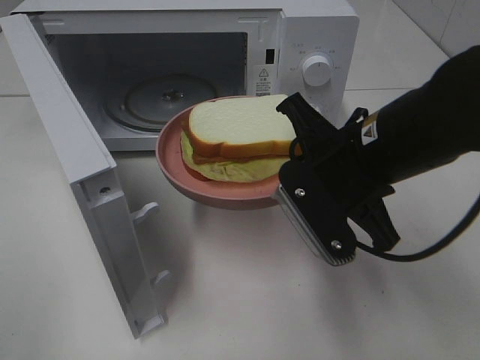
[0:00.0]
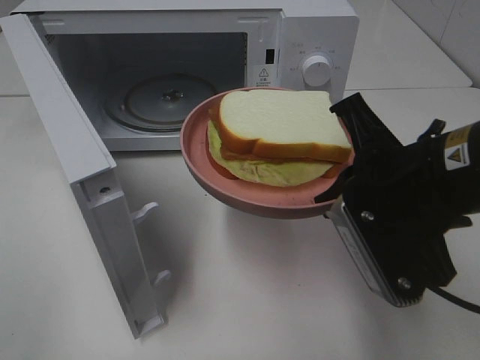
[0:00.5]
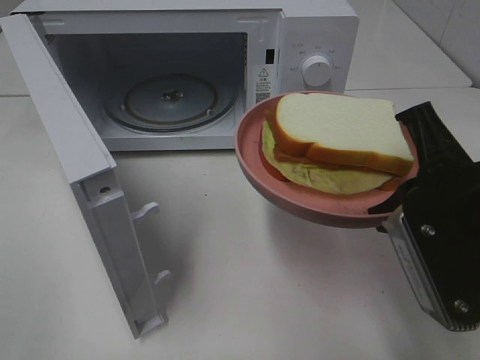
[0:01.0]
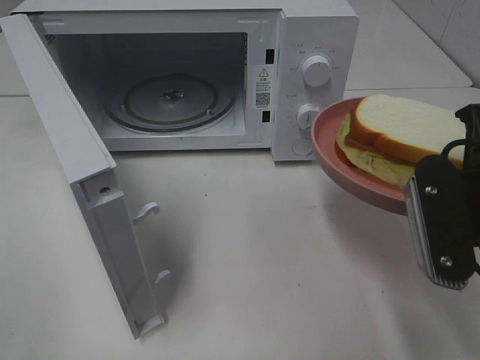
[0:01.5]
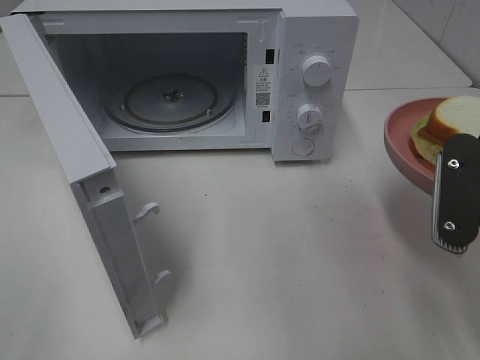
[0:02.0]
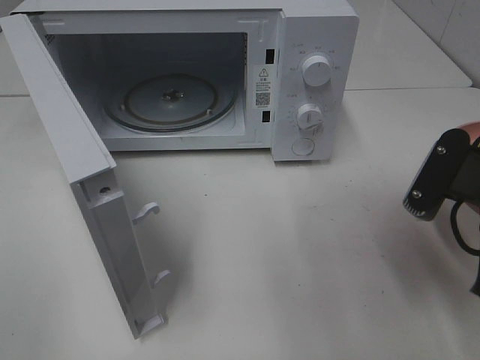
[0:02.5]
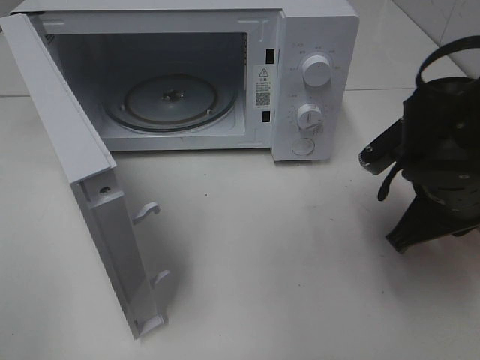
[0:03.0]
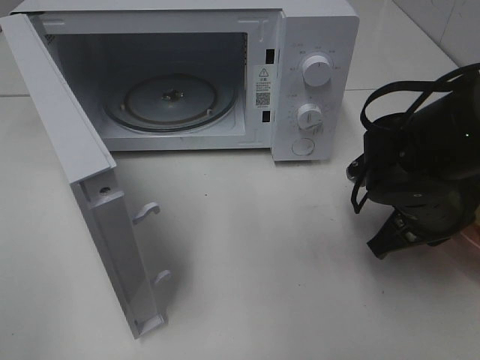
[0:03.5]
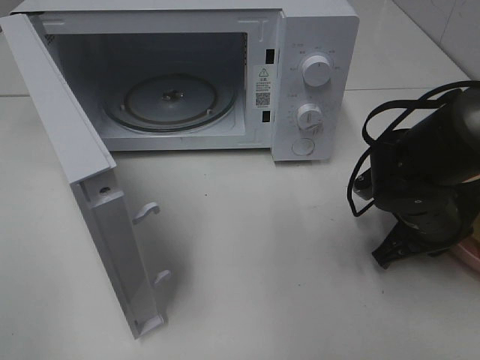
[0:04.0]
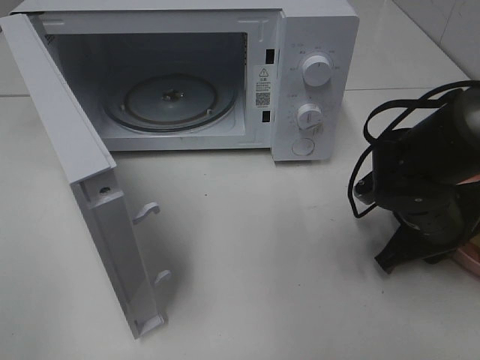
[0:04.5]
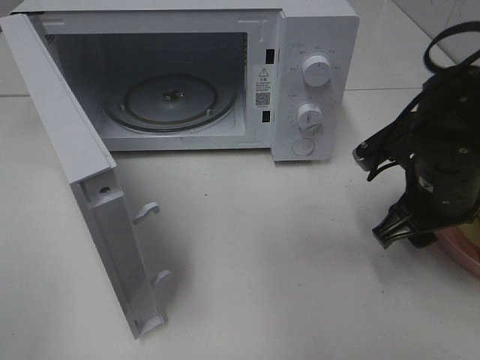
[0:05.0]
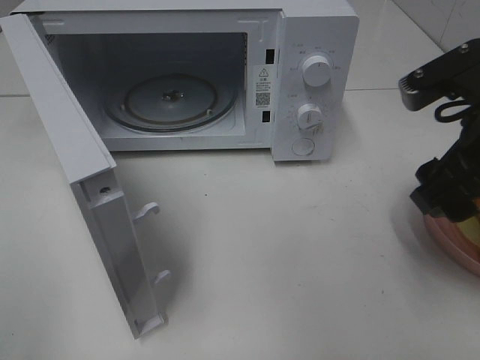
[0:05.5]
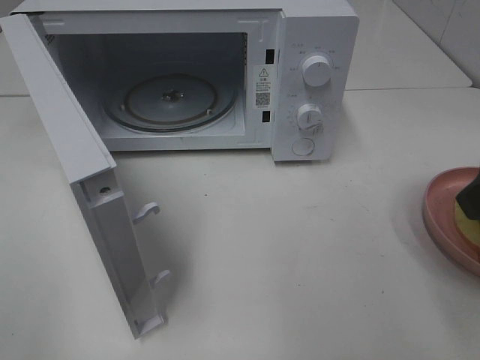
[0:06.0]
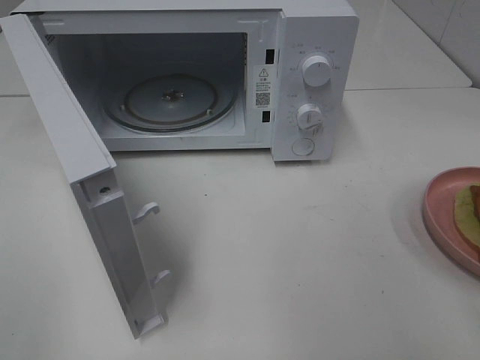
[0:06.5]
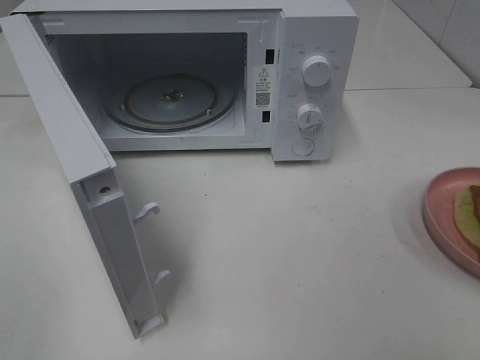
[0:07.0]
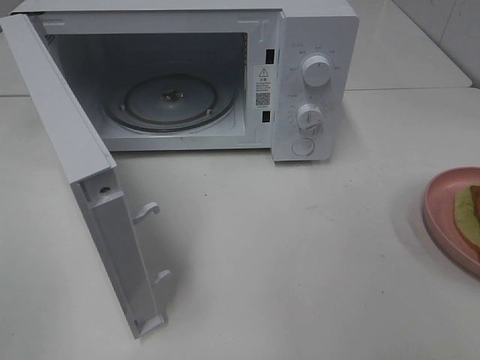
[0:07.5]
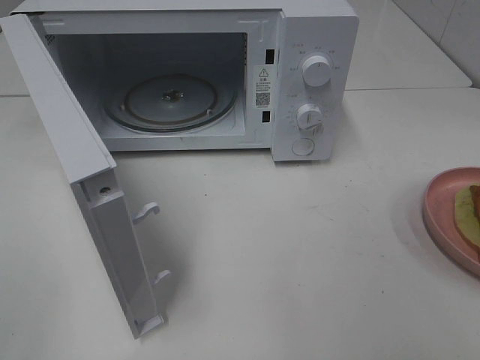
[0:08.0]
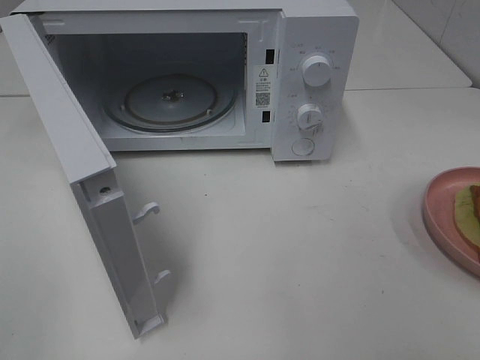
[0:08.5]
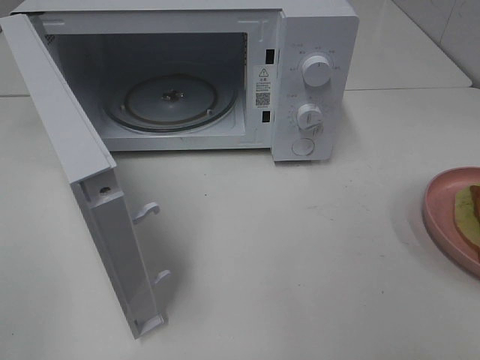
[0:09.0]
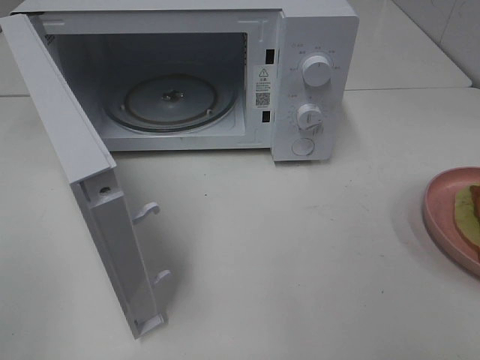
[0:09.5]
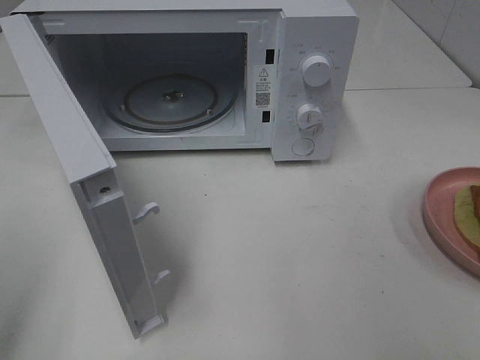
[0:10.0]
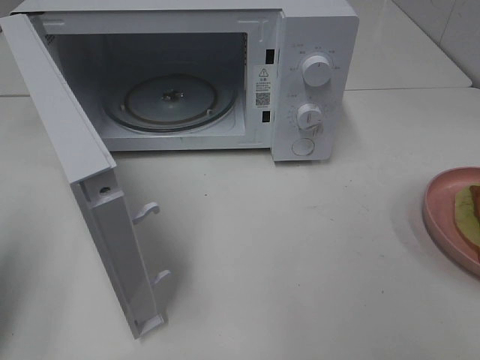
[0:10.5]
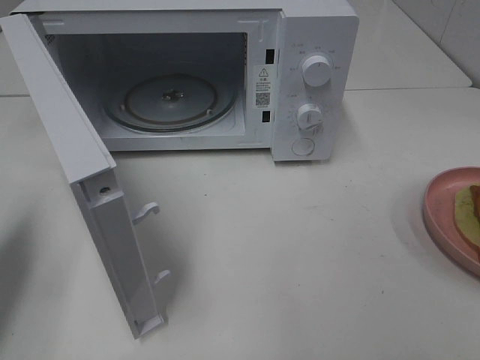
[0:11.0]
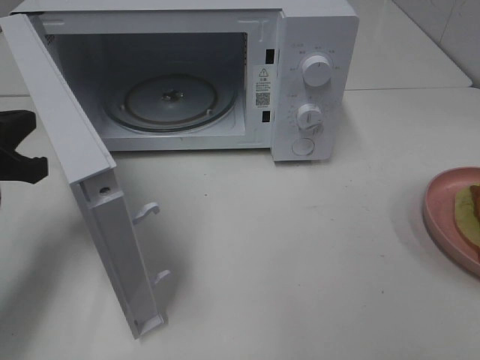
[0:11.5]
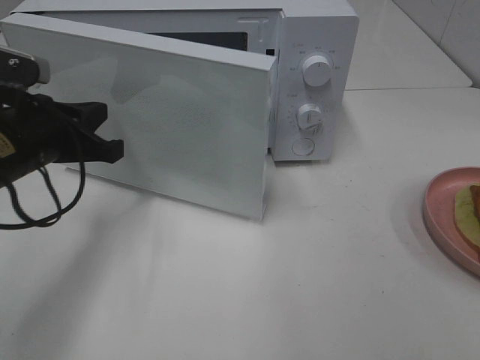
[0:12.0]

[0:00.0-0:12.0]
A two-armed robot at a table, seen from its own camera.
Task of the whole recording: Heat Sandwich.
Step, 0:00.0 to 0:05.5: Right hand: place the plate on the table.
0:00.0 to 0:02.0: The right gripper goes about 15 cm to the right and backward.
0:02.0 to 0:04.0: The right gripper moves downward and forward, approximately 15 cm.
0:04.0 to 0:06.0: The right gripper travels upward and backward by roughly 25 cm, and opens its fingers.
0:06.0 to 0:08.0: The right gripper travels backward and to the right by about 15 cm.
0:10.0 to 0:12.0: The left gripper travels forward, downward and to the right by some 25 cm, and closes its fingers.

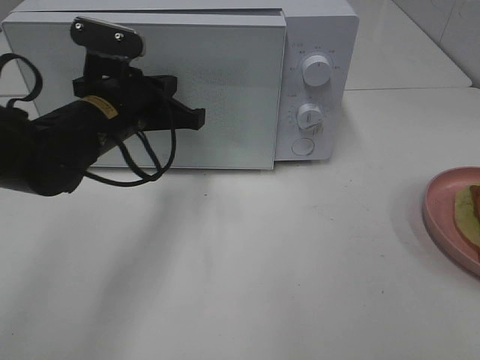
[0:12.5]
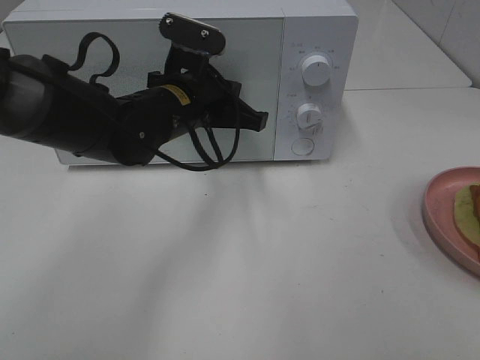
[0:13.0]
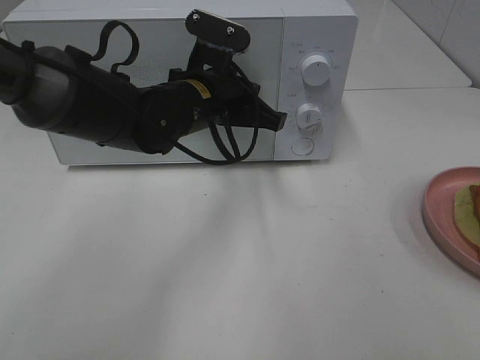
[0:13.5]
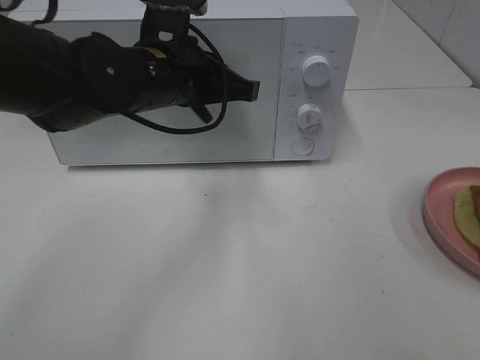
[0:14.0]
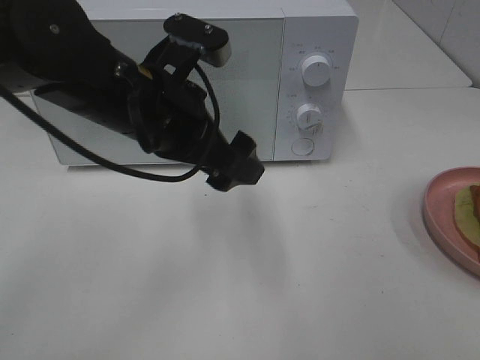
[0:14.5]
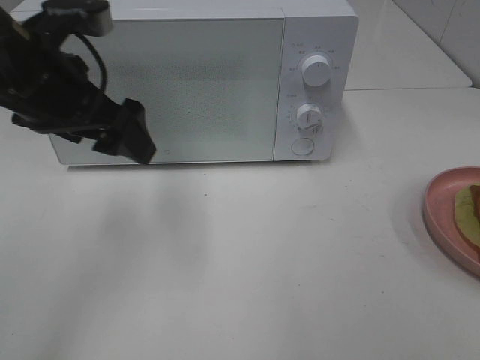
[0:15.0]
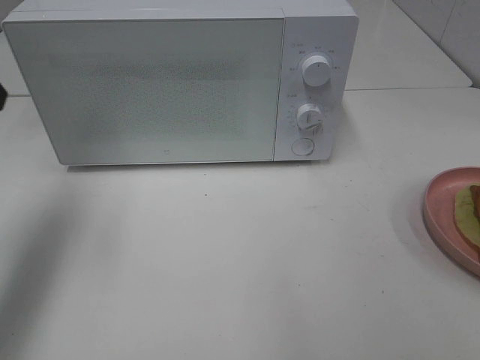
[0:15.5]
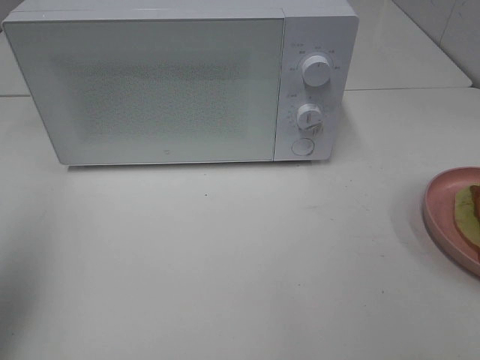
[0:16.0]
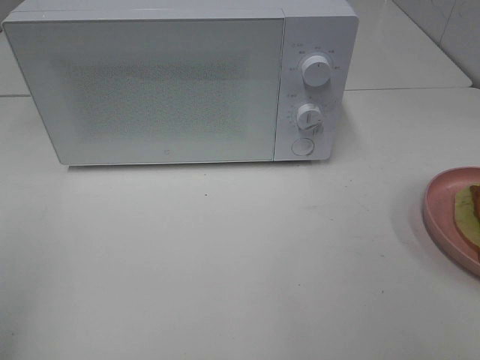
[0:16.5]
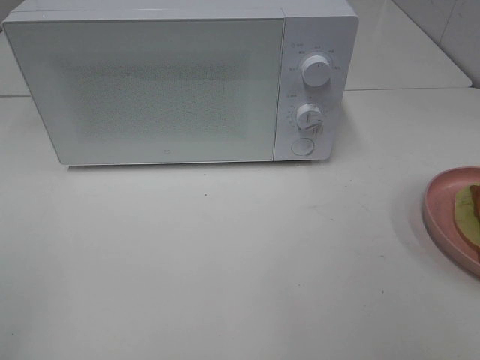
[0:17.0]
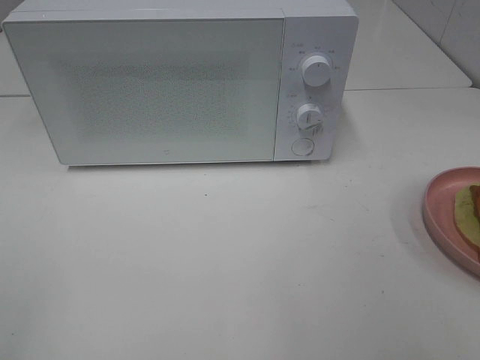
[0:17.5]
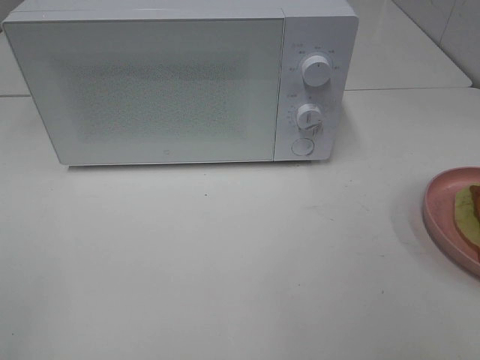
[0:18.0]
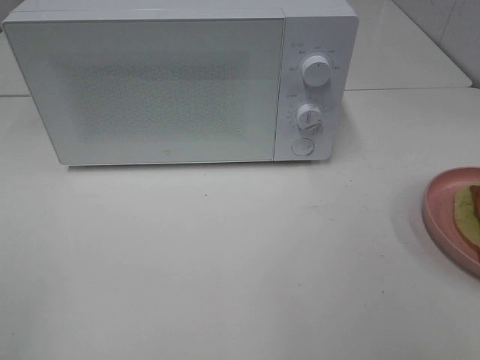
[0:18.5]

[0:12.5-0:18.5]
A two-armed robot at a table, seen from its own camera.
Task of the whole recording: Heat Sandwich.
0:12.5 to 0:14.5: The left gripper heads upward and backward, covering approximately 10 cm, and opens its fingers.
0:14.5 to 0:16.5: The left gripper moves to the left and backward, approximately 35 cm.

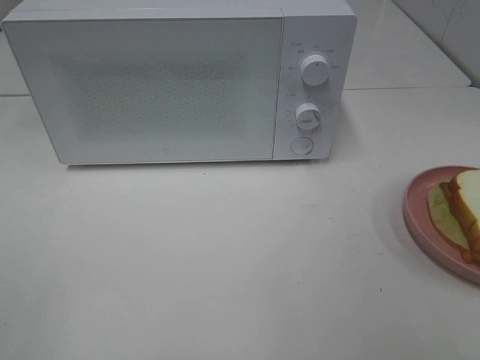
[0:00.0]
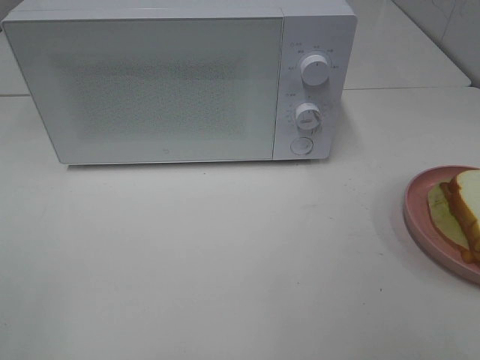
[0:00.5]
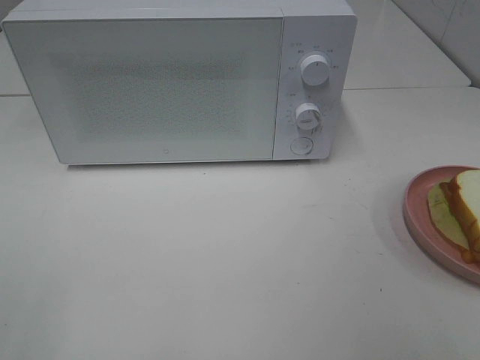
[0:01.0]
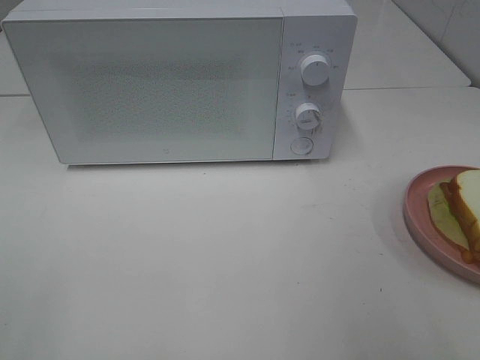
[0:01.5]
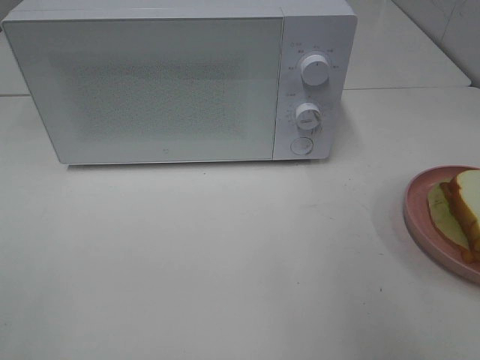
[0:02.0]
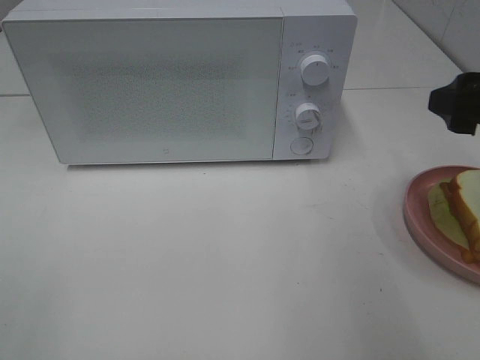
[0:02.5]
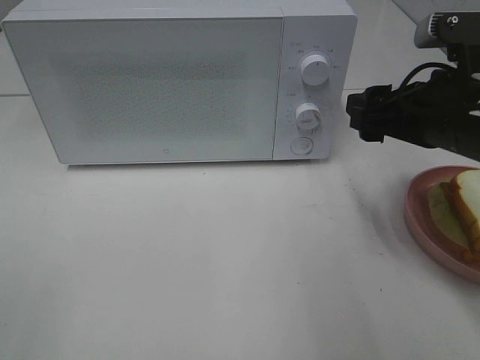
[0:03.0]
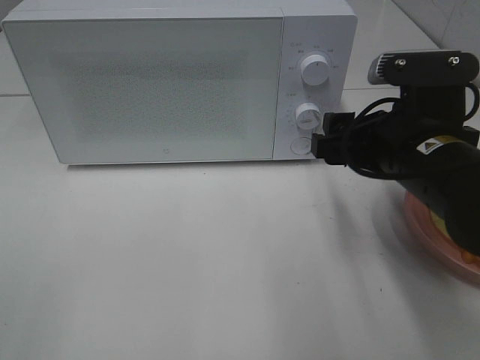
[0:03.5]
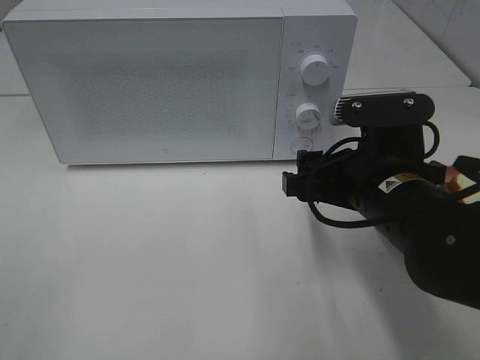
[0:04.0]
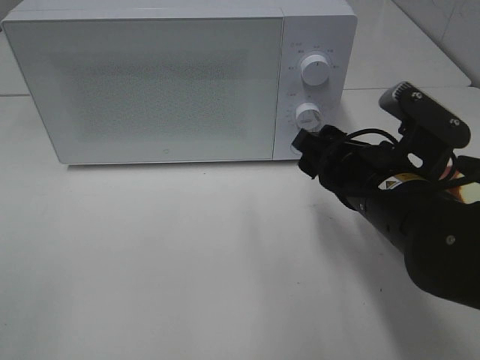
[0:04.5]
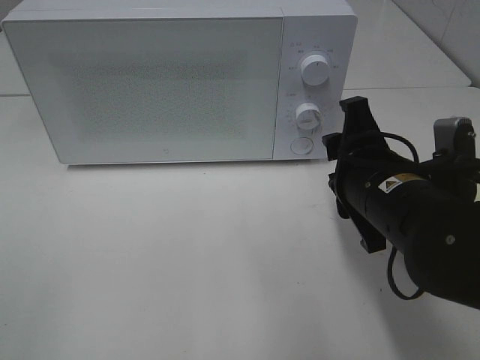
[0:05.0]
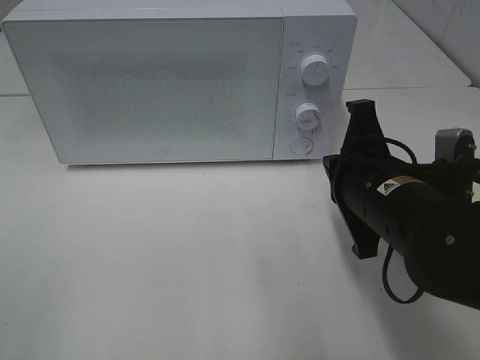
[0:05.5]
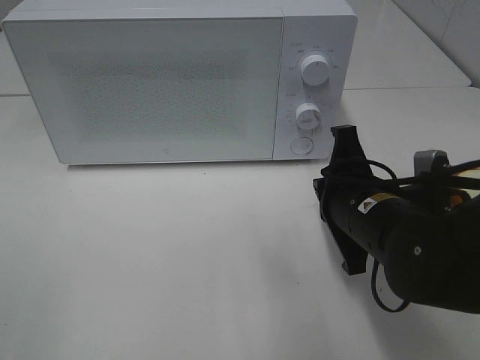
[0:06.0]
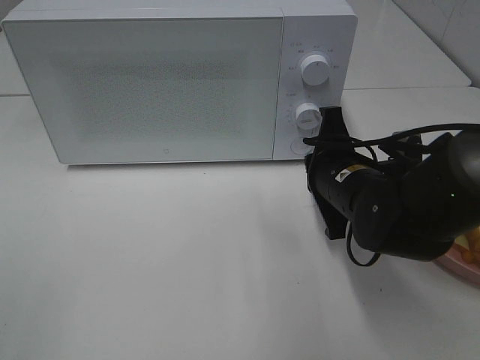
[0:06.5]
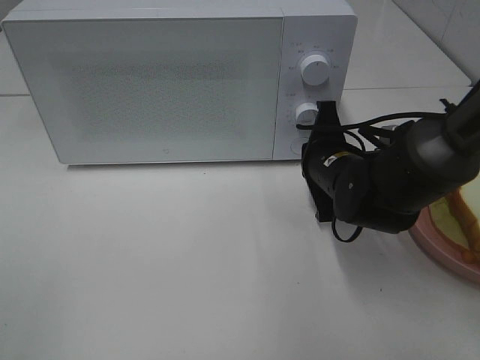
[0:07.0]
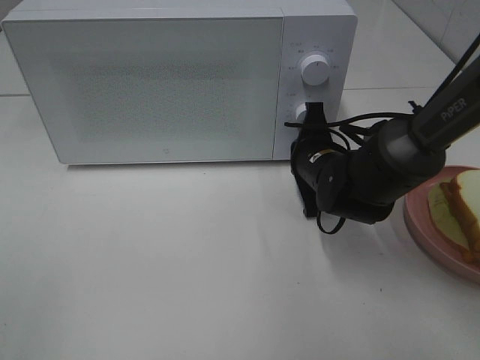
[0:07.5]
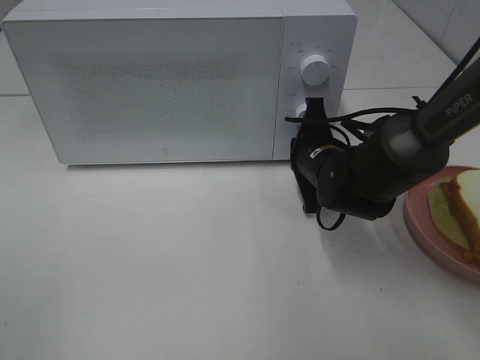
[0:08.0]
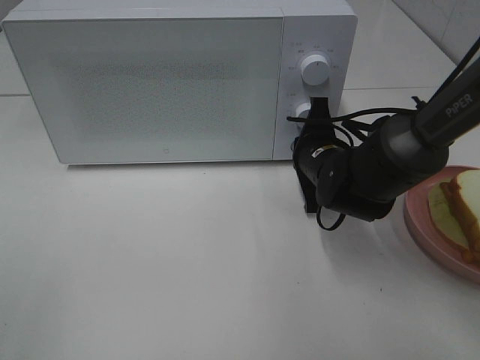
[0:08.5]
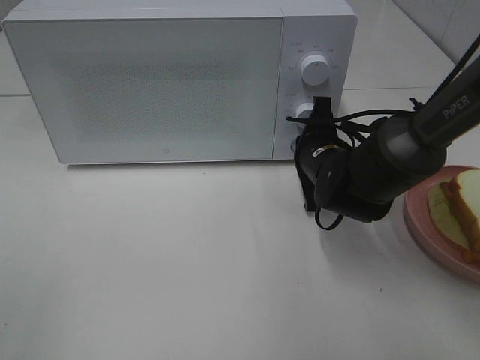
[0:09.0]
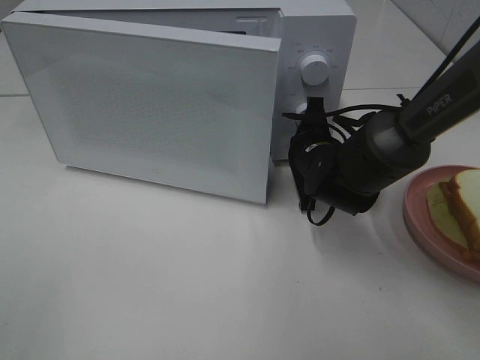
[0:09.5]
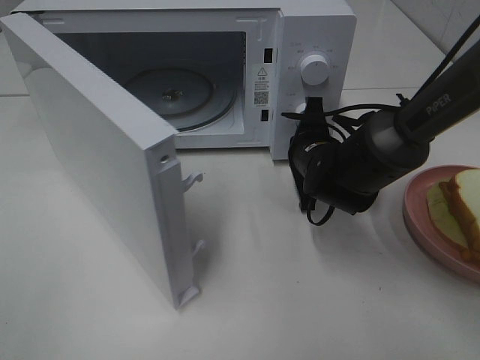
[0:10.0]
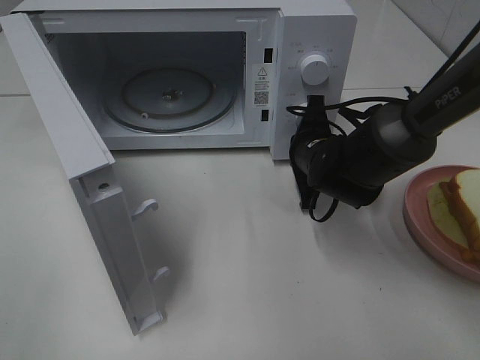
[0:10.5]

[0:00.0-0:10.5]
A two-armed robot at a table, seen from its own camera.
Task of the whole recording: Heat Sandwich.
0:02.0 to 0:04.0: The right gripper moves to the left, downward and forward, some 20 cm.
0:04.0 to 0:06.5: The right gripper is displaced forward by some 5 cm, and closes.
0:06.5 to 0:08.5: The right gripper goes approximately 5 cm forward.
